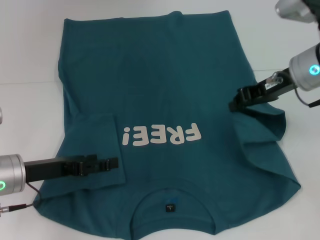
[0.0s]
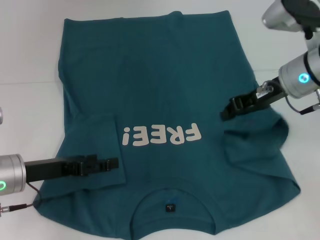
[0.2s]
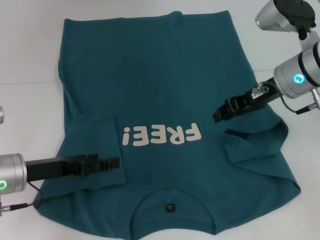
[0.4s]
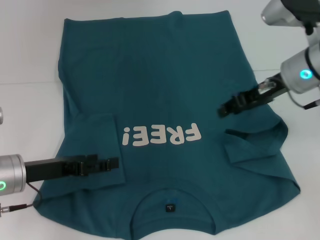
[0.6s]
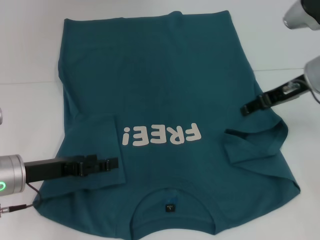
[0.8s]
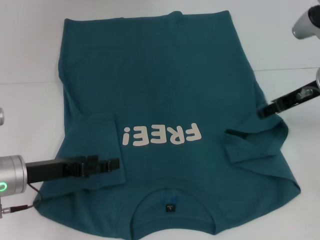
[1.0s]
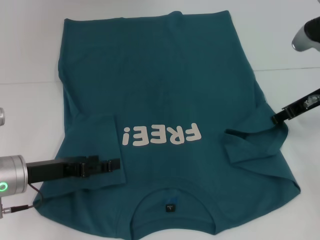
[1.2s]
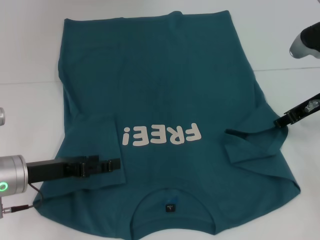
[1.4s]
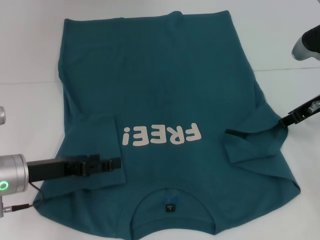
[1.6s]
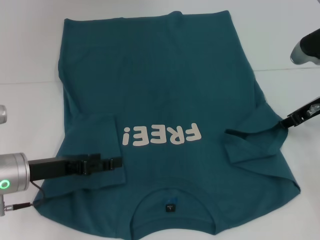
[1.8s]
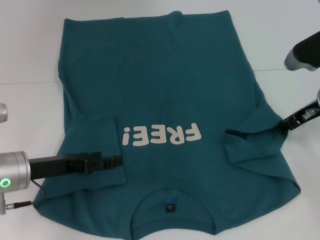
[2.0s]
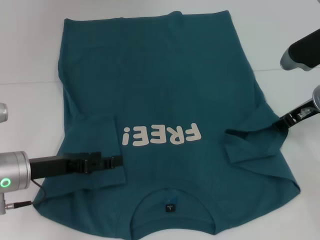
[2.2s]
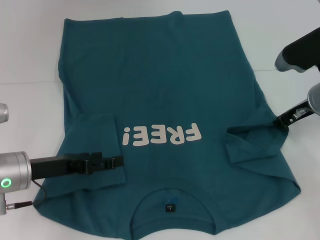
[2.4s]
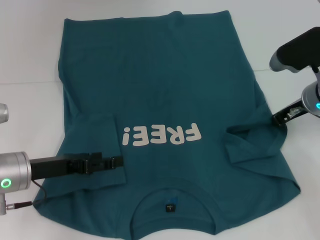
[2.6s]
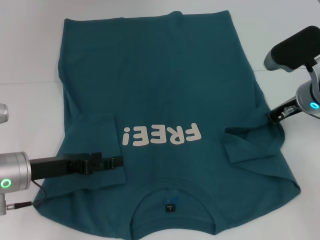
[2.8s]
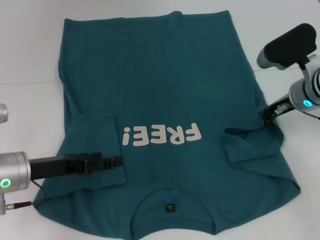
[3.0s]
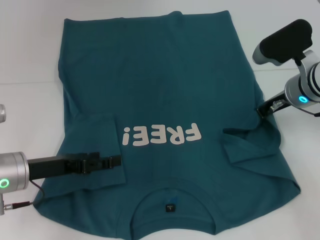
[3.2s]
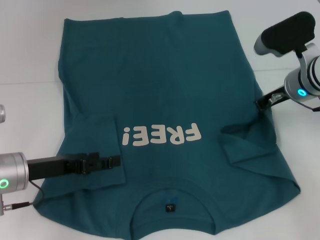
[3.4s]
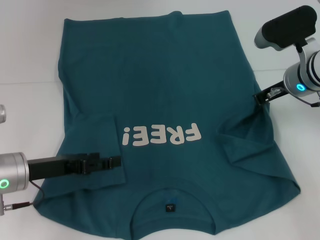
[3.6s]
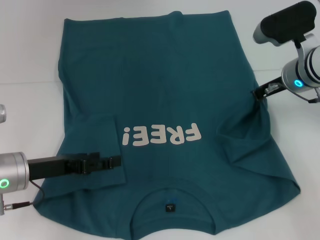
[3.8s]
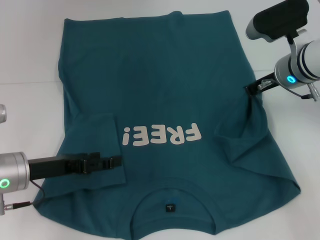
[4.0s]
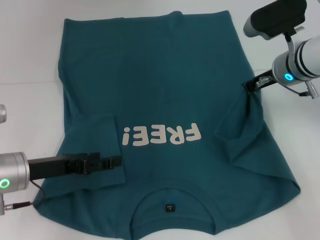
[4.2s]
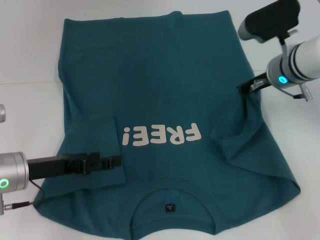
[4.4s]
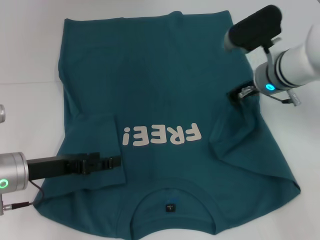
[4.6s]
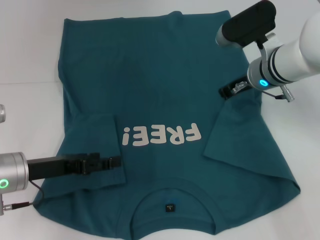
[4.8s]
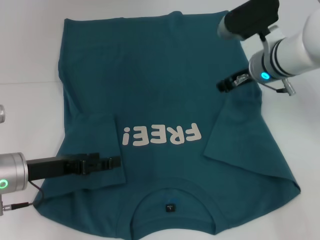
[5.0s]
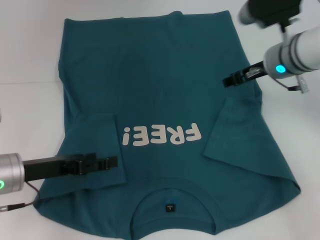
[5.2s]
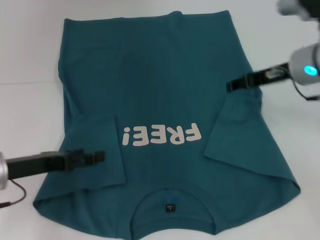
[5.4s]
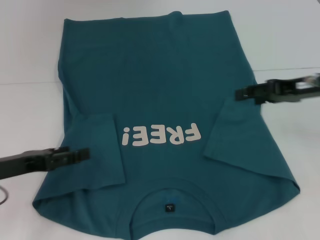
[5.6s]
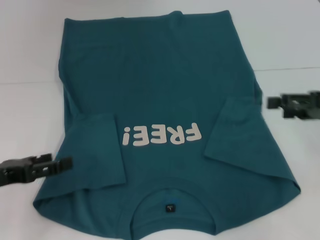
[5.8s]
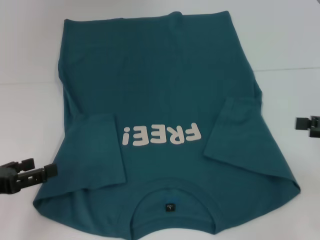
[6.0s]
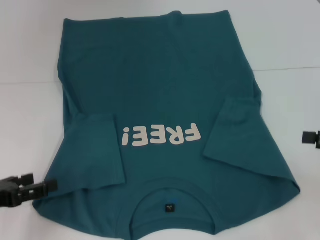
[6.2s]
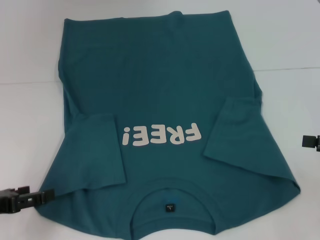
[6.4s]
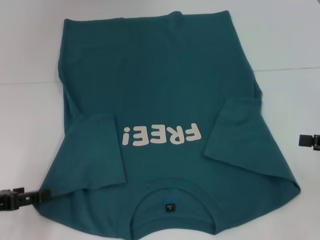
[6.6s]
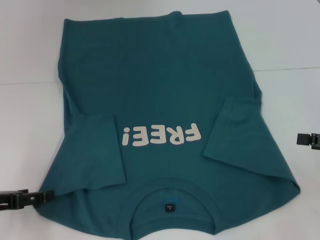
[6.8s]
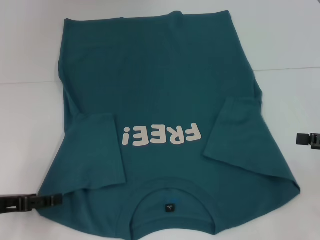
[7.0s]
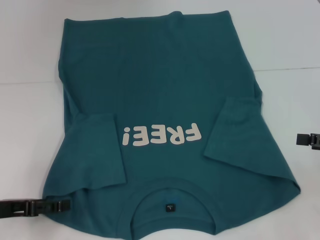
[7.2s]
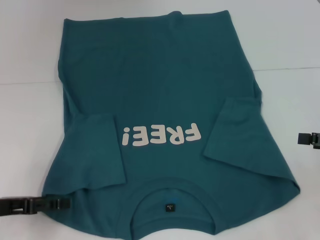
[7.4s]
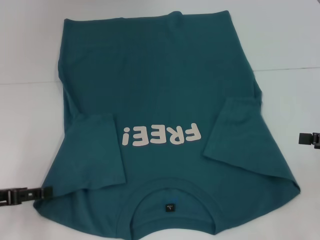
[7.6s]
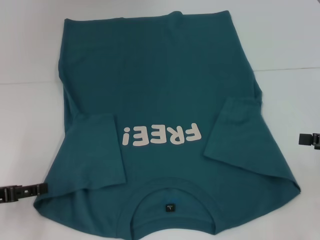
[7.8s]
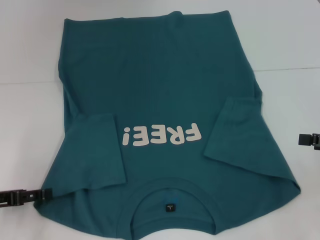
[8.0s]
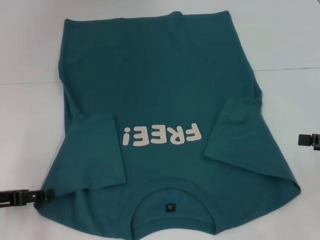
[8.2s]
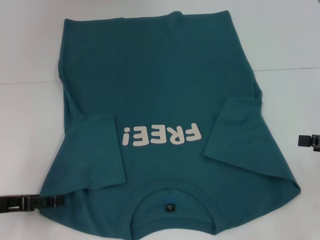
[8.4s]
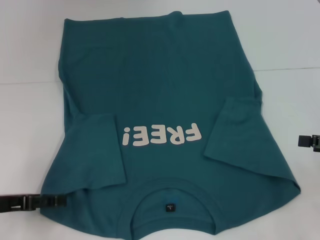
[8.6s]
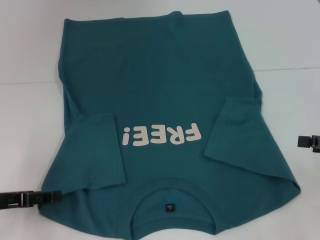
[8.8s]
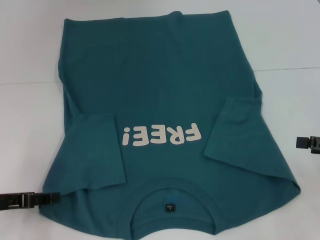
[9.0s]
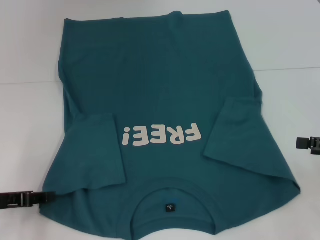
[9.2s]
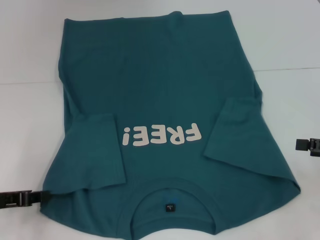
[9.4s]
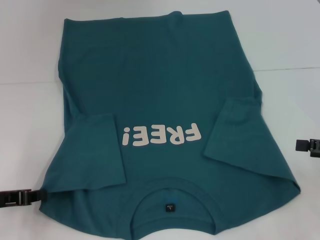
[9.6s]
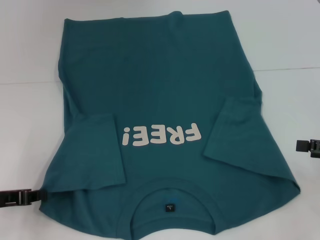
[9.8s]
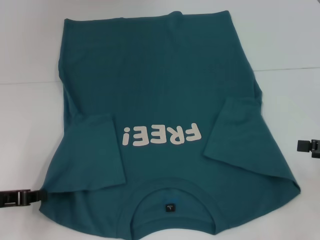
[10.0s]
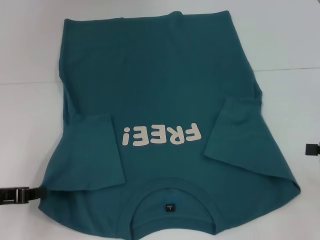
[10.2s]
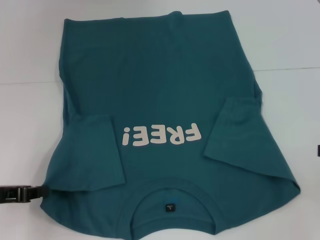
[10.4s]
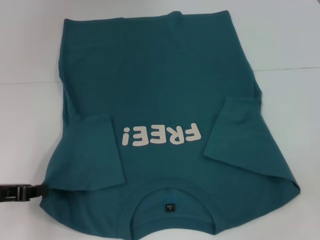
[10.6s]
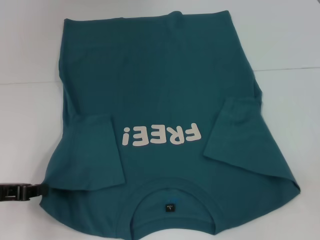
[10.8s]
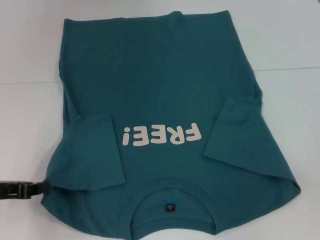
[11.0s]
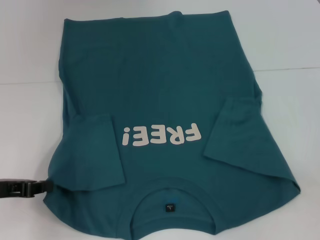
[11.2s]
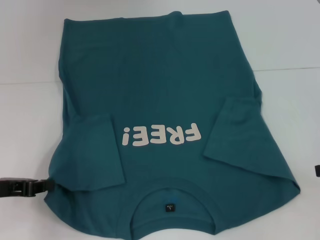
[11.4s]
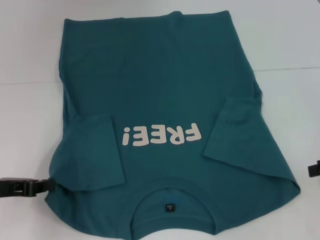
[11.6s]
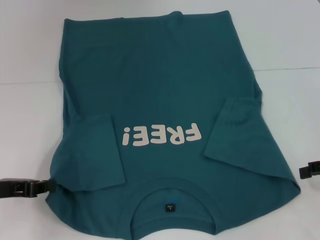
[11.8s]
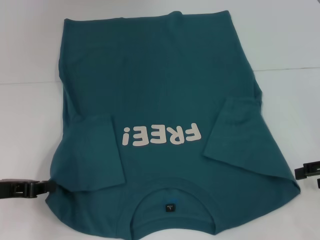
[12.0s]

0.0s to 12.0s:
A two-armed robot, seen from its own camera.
Step, 0.0s to 4.6s: Fold the bottom right sleeve to the right.
Step, 4.8s to 9.8s: Grab the bottom left corner with your left hand.
0.0s to 1.6s: The right gripper heads to the right, covering roughly 5 cm, and opens.
1.6s to 3.0s: The right gripper changes place by roughly 5 cm, and closes its fingers.
3.0s to 4.4s: The grippers move only a little.
4.4s to 6.0s: The left gripper moves to the left and backward, roughly 10 cm, while the right gripper moves backward and to the right, approximately 25 cm, and opens up.
7.6s to 9.0s: The grippers stay close to where they were, moving slightly.
9.0s to 10.4s: The left gripper closes up.
10.4s to 12.0s: The right gripper shifts by approximately 5 cm.

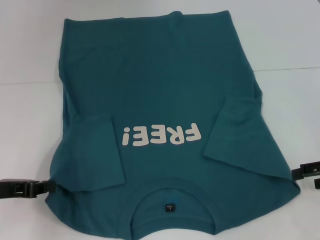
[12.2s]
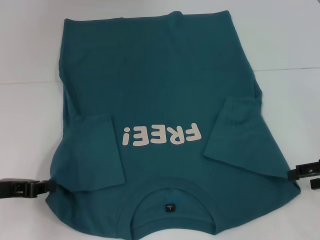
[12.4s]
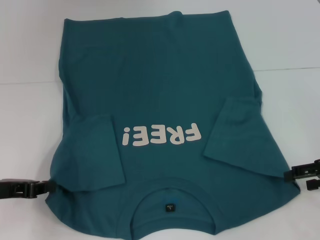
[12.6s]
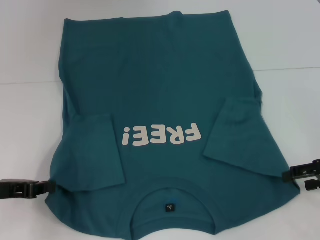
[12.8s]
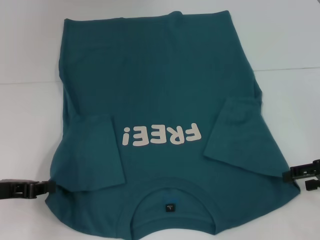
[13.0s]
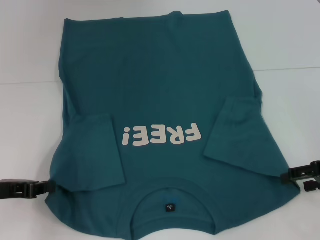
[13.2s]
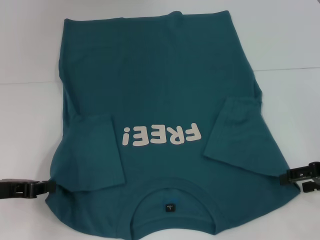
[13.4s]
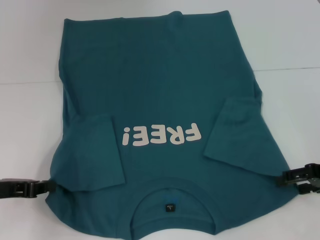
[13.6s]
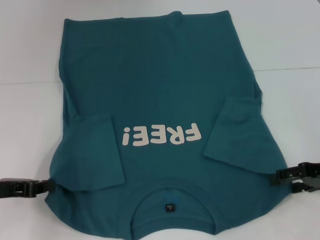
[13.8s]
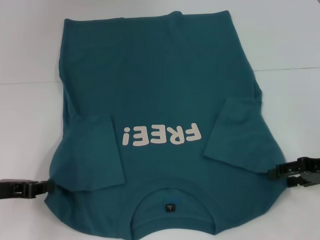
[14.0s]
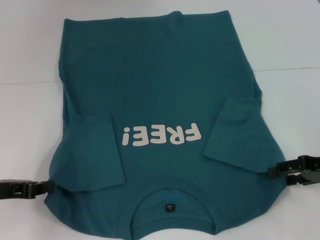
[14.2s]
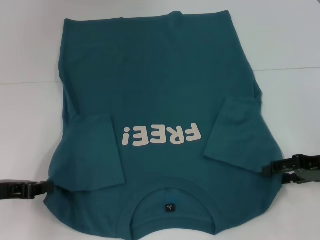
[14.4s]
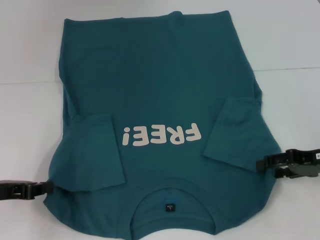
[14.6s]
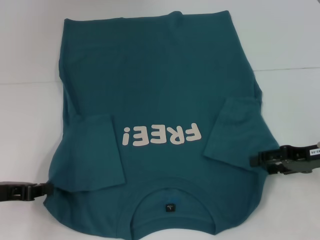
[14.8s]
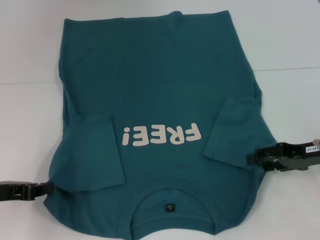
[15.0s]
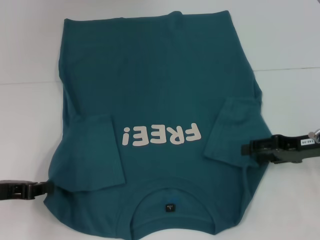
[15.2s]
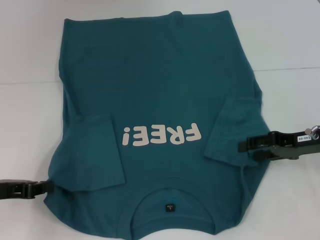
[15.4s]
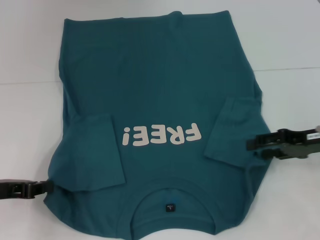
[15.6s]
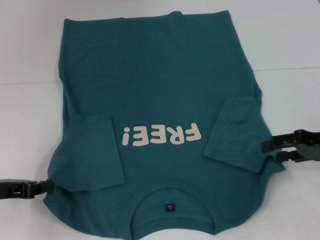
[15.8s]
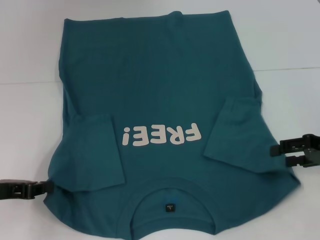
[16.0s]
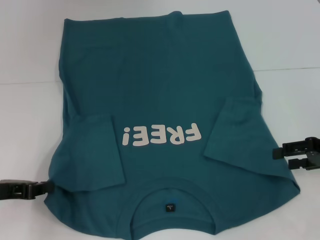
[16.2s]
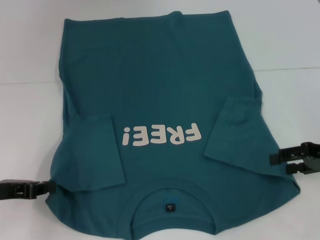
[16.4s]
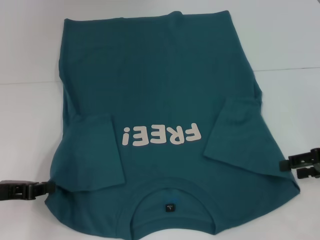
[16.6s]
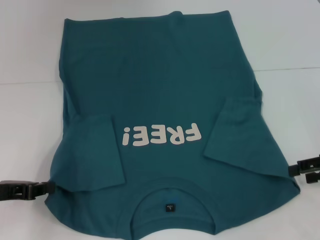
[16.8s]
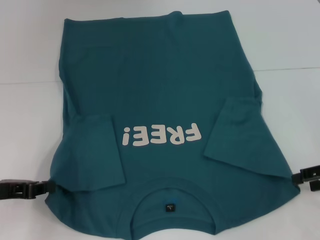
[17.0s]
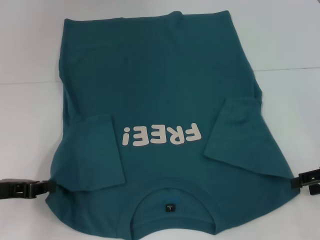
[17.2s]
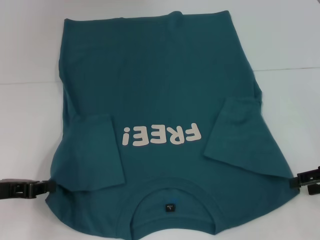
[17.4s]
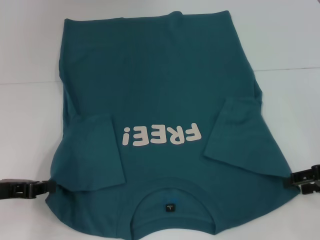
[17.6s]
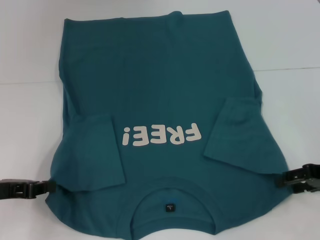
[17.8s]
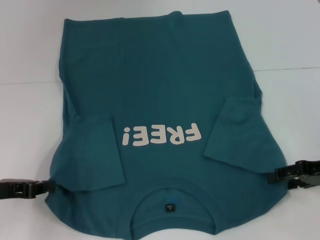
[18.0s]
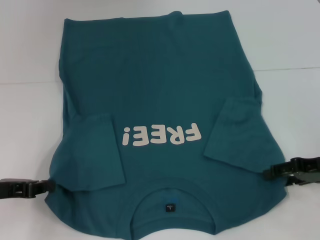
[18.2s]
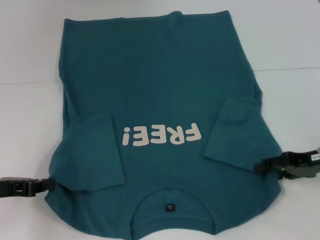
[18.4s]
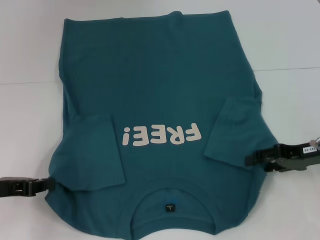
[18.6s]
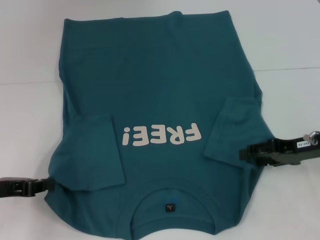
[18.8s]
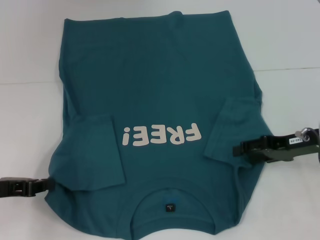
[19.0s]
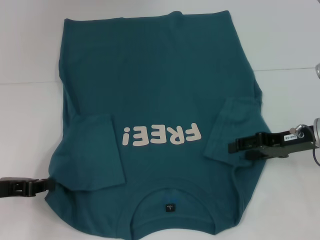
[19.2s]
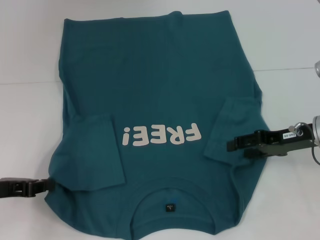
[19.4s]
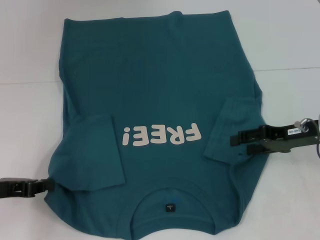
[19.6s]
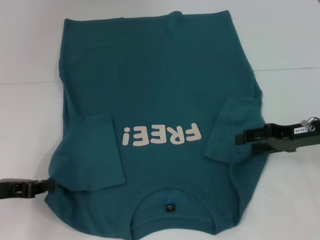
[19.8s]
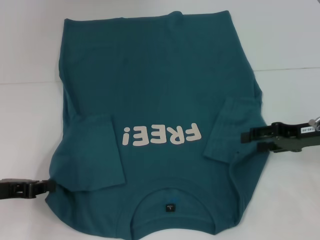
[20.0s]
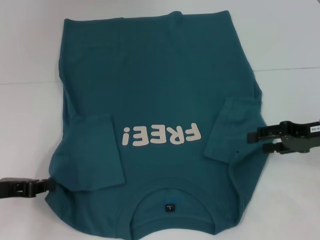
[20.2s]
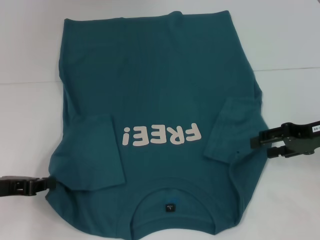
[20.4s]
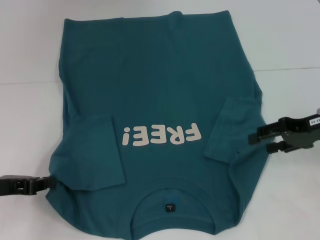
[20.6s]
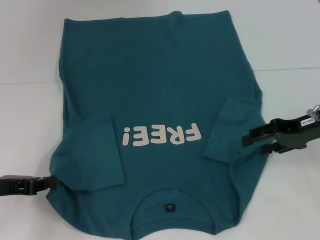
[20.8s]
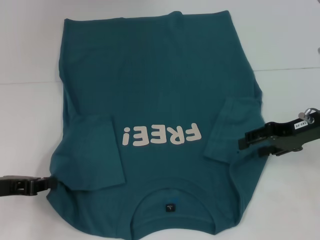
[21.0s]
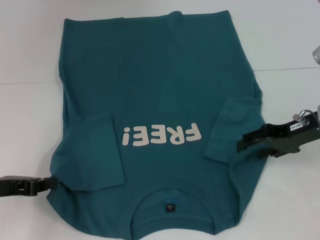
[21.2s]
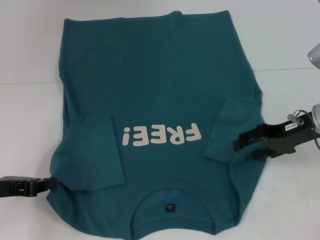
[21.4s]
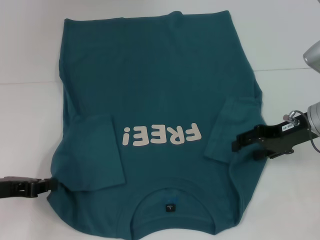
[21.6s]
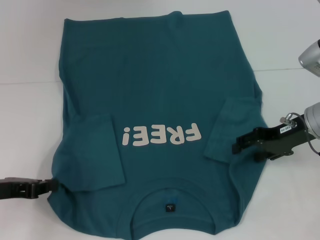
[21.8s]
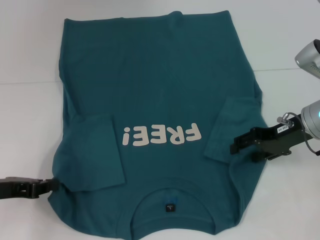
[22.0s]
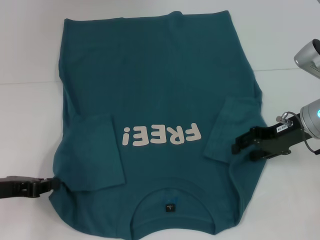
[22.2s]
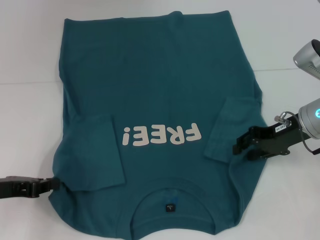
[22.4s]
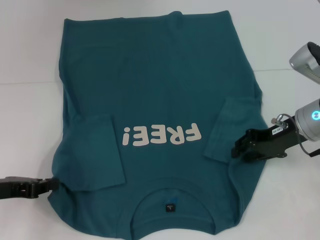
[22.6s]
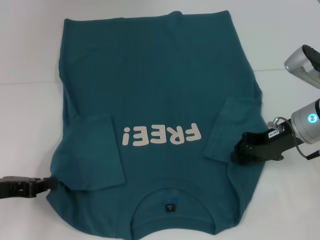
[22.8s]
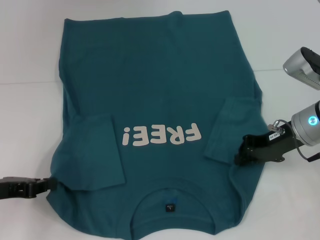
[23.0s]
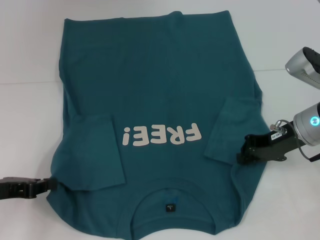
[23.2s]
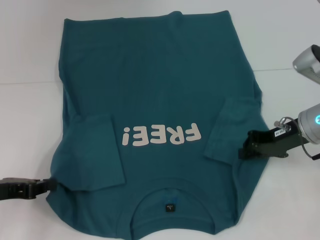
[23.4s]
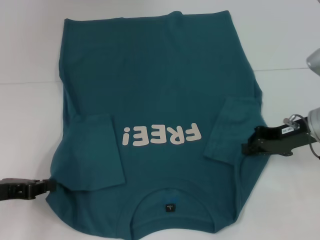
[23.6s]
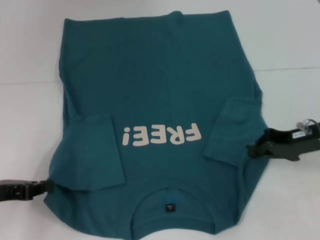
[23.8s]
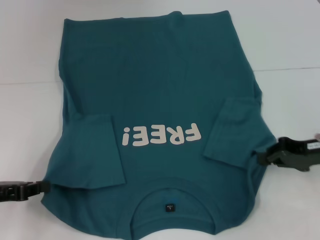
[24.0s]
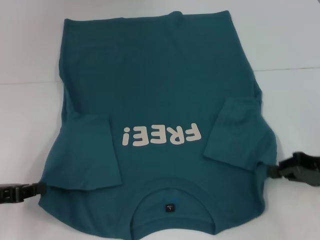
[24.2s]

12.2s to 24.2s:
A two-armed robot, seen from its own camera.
Step, 12.2s to 23.0s: Grab the bottom right corner with your right hand.
12.2s to 13.8s: The grippers make only small movements.
13.8s to 15.2s: There are only small adjustments of the grippers.
15.2s to 16.6s: The right gripper moves about 5 cm.
16.6s to 18.2s: The grippers move only a little.
18.2s to 19.8s: There are only small adjustments of the grippers.
19.8s to 22.6s: There are only small adjustments of the grippers.
22.6s to 24.2s: The right gripper shifts some 10 cm backward and to the right, and closes up.
